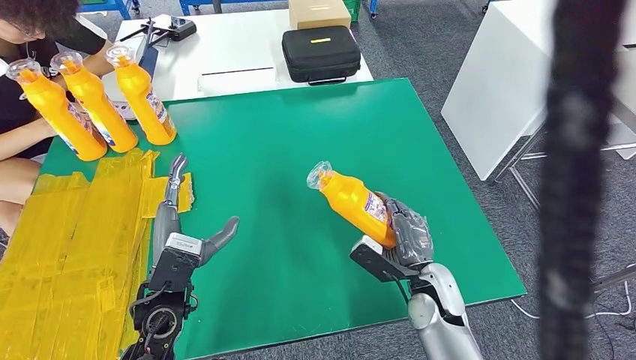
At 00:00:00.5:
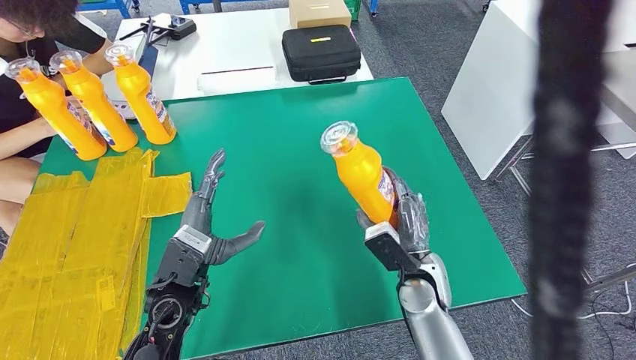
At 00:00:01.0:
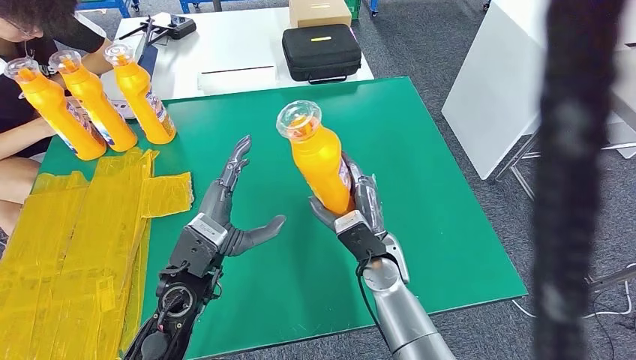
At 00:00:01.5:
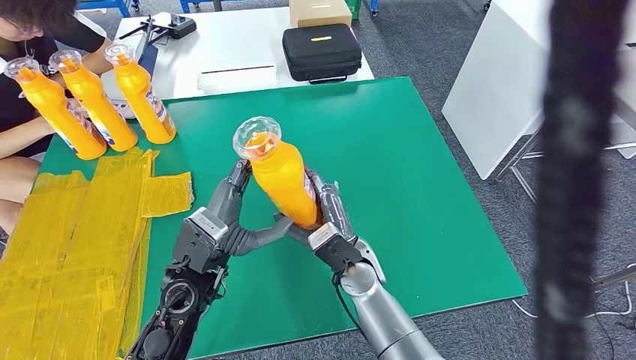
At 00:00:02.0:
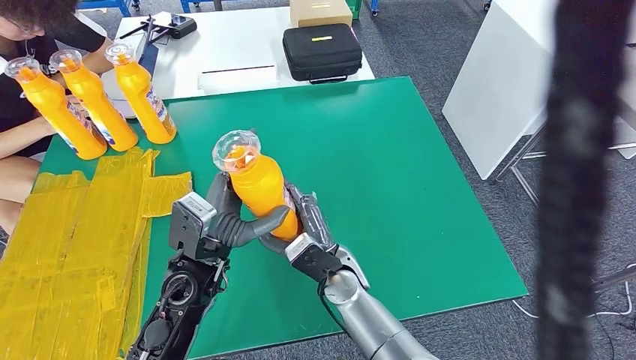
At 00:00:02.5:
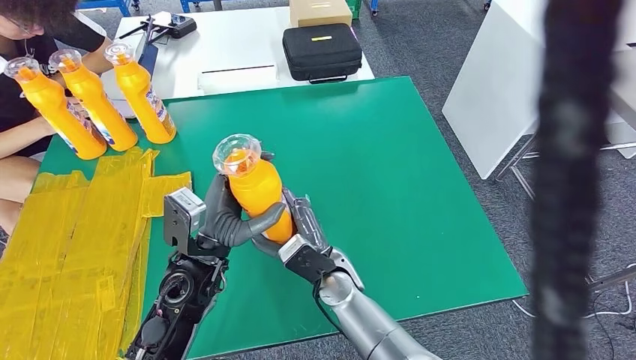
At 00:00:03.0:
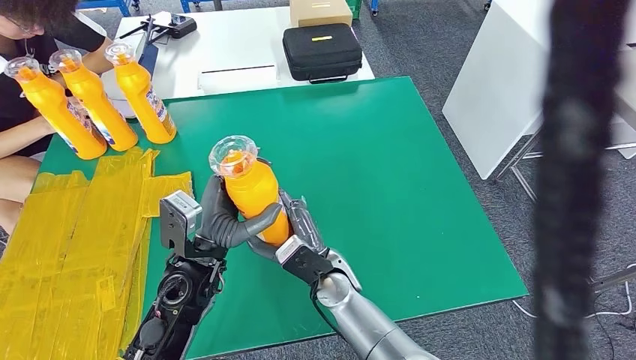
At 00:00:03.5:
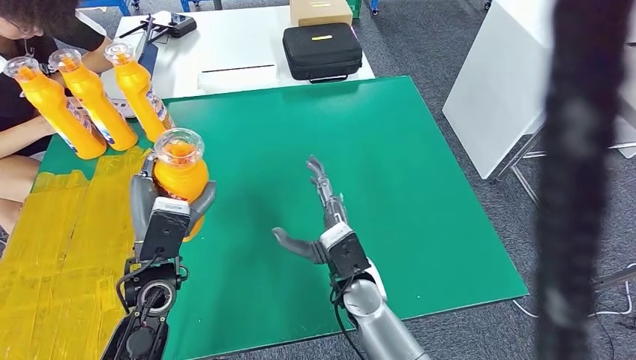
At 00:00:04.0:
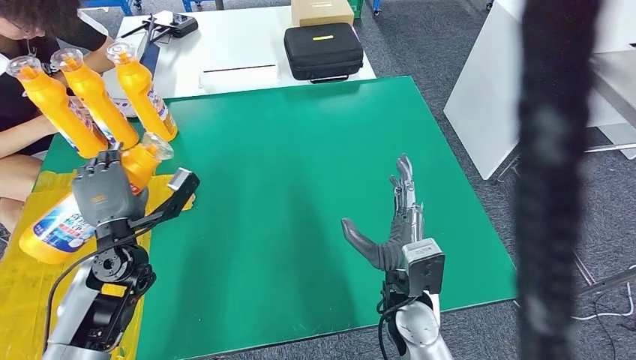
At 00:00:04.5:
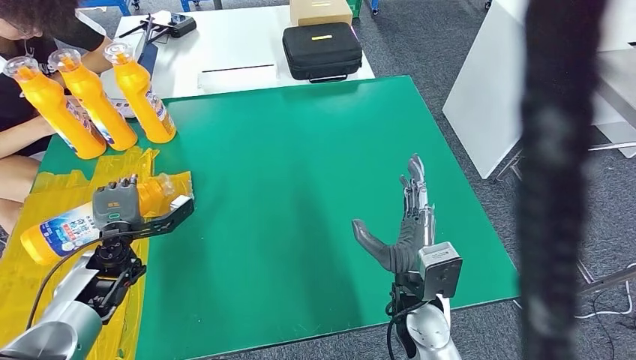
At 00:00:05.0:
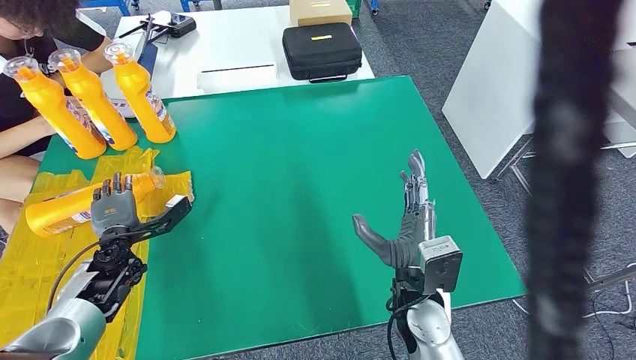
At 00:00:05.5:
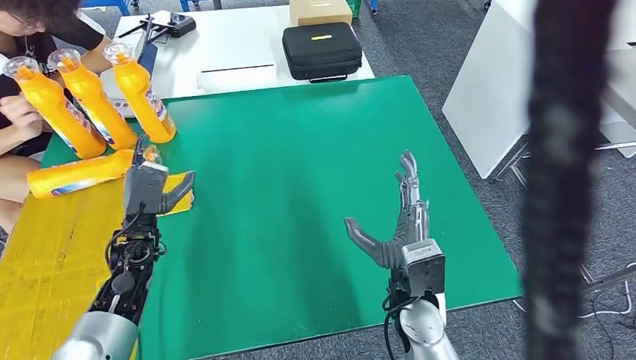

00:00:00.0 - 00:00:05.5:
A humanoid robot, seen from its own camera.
Step, 00:00:01.5 - 00:00:05.5: Flip the bottle to face forward.
00:00:02.0 - 00:00:03.5: The left hand is displaced to the left by approximately 5 cm.
